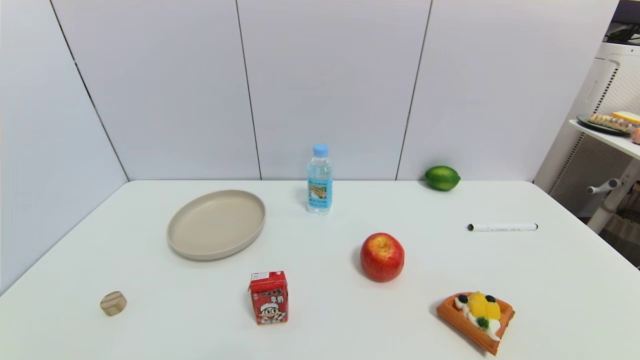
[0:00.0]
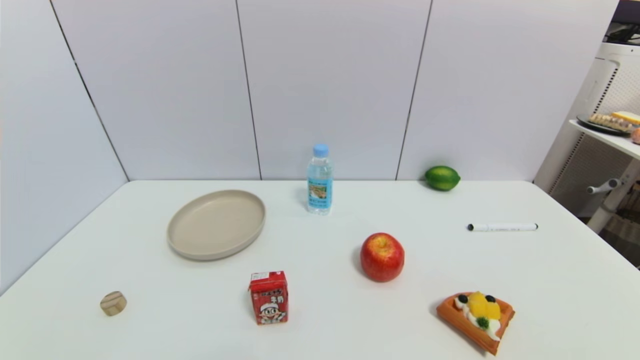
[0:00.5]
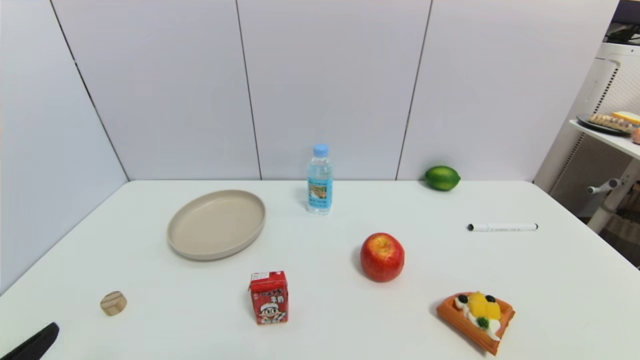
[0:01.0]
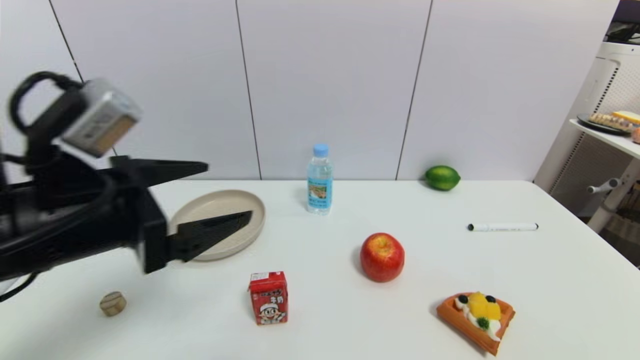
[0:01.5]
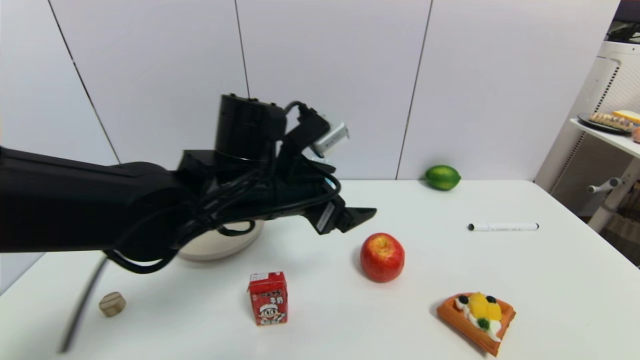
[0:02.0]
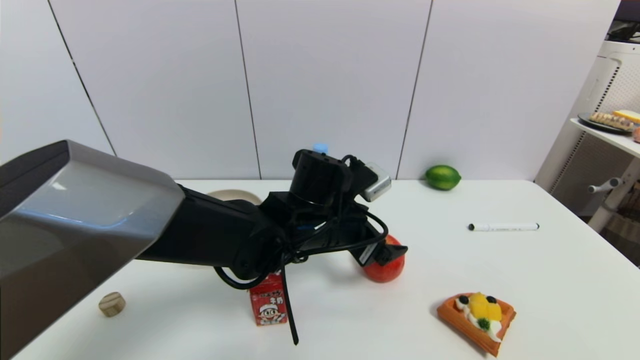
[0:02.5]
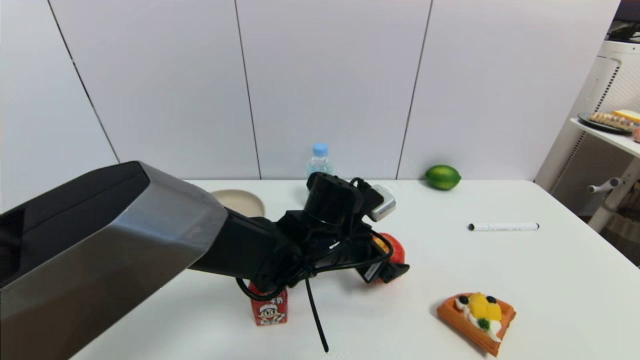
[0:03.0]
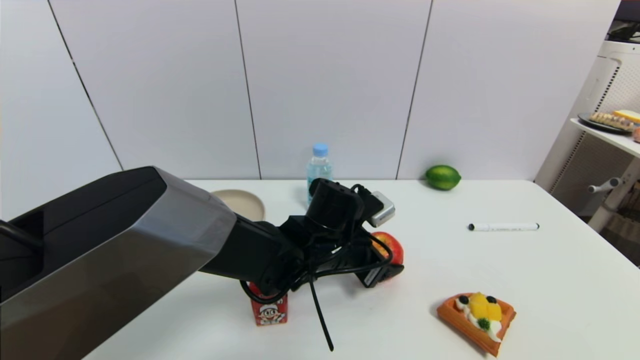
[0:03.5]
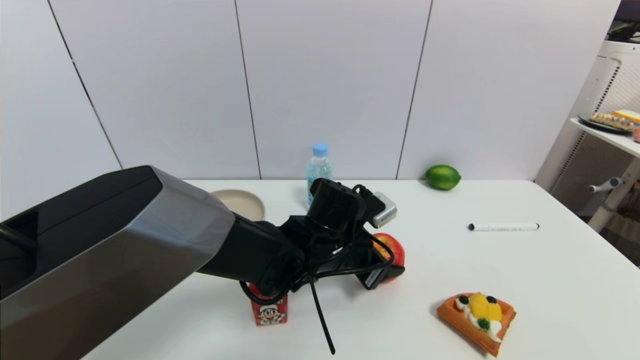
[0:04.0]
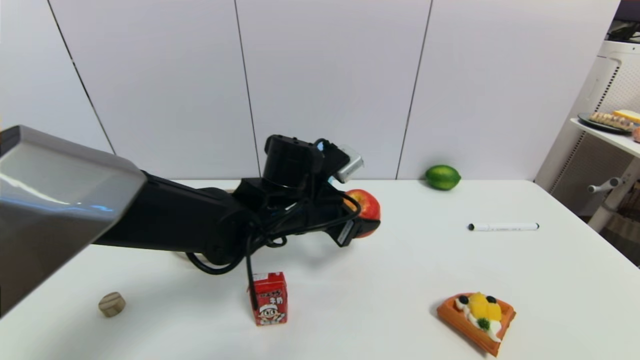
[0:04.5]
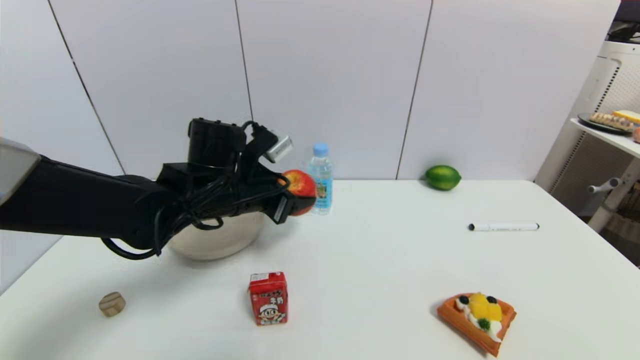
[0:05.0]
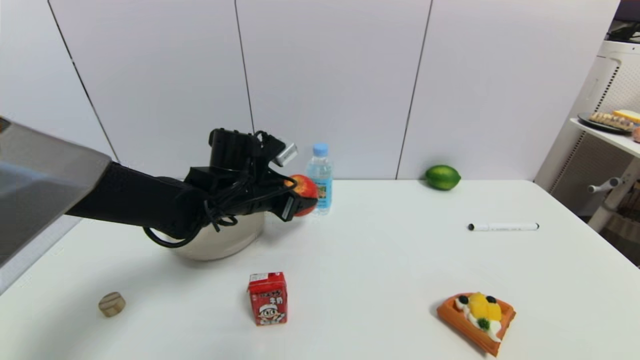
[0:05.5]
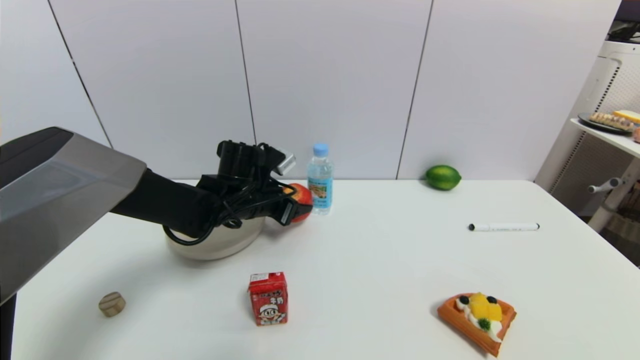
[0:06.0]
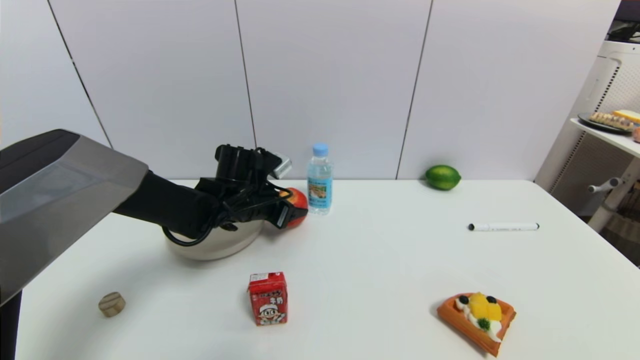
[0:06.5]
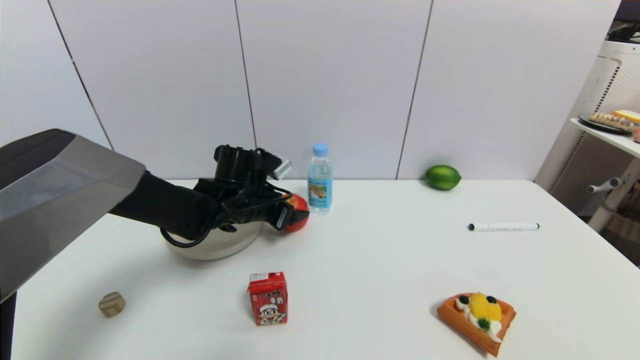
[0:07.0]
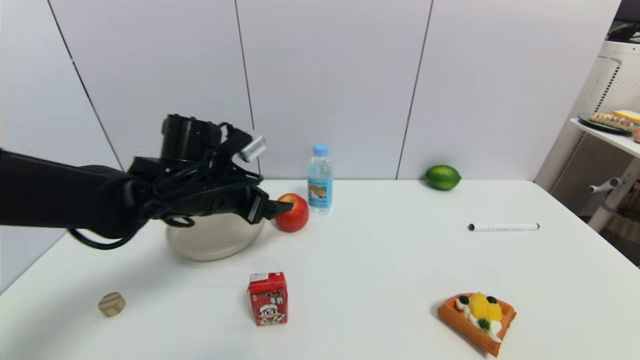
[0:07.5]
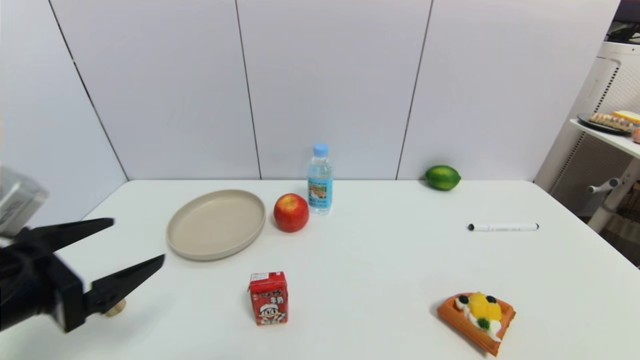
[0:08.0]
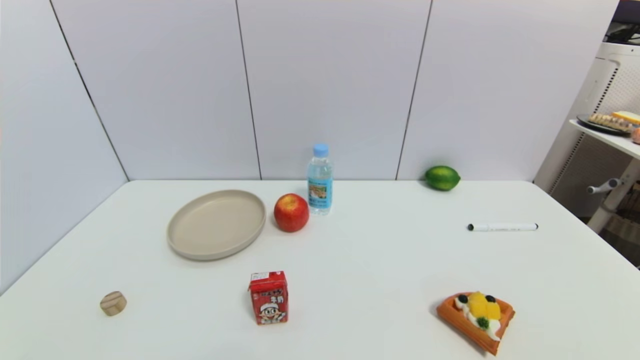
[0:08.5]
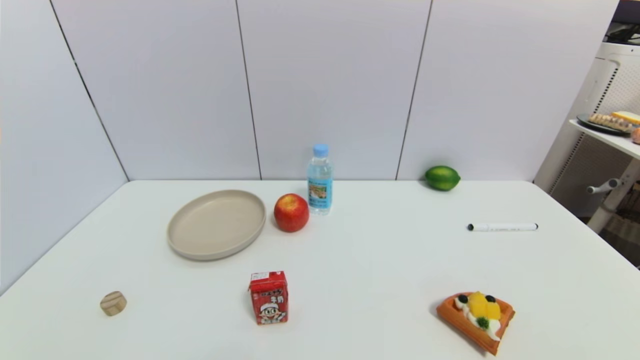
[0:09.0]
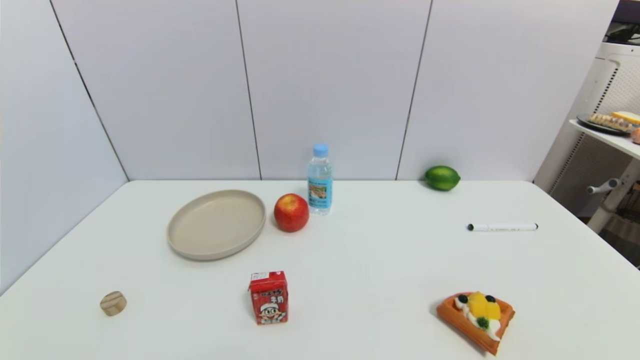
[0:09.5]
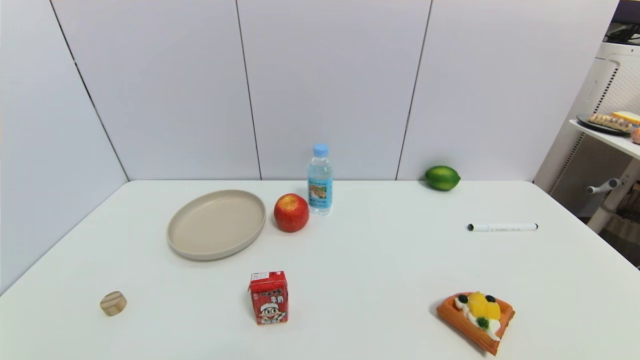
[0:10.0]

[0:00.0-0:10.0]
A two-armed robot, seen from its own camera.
Task of the whole recording: put the apple in the designated position.
Step, 0:01.0 to 0:03.5: Grasp the apple with left gripper.
Step, 0:04.0 to 0:07.5: Place the apple on the table with left gripper.
0:00.0 to 0:02.0: The left gripper moves forward, to the right and upward, roughly 40 cm.
0:02.0 to 0:04.0: The left gripper shifts some 15 cm downward and to the right, and closes up.
0:04.0 to 0:06.0: The left gripper travels to the left and forward by roughly 15 cm.
0:06.0 to 0:08.0: The left gripper is displaced backward and to the left by some 30 cm, and opens its fingers.
0:08.0 to 0:10.0: The left gripper goes about 20 cm backward and downward.
